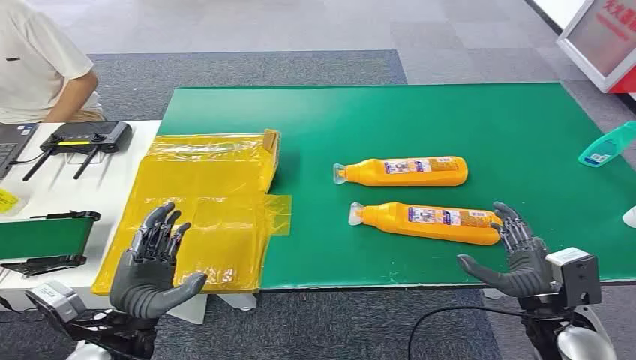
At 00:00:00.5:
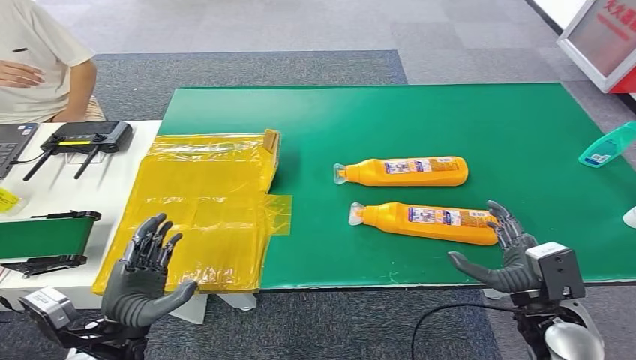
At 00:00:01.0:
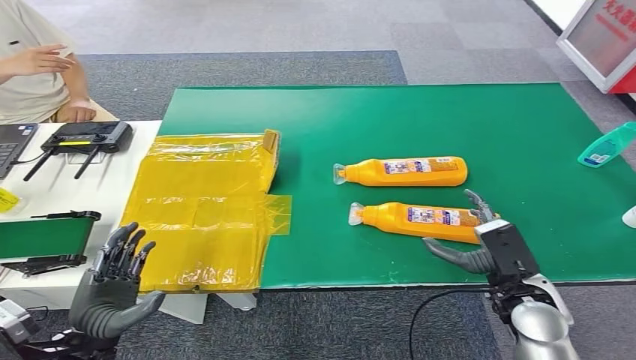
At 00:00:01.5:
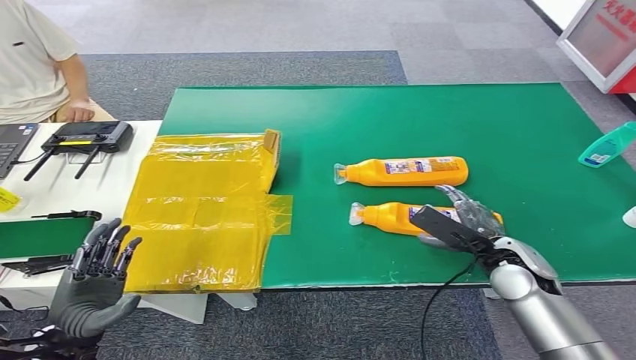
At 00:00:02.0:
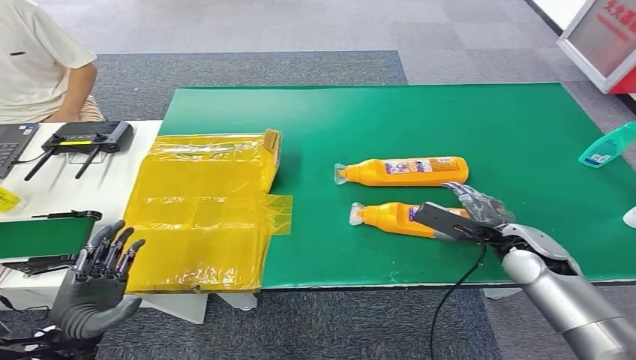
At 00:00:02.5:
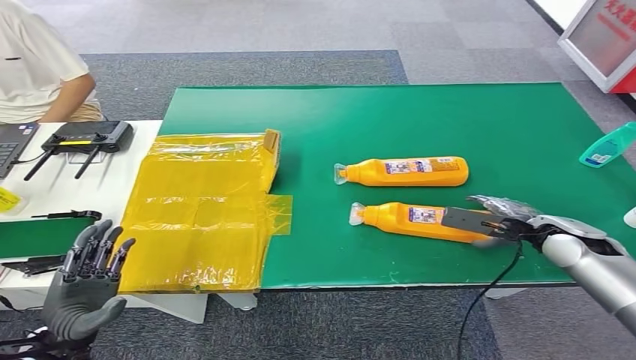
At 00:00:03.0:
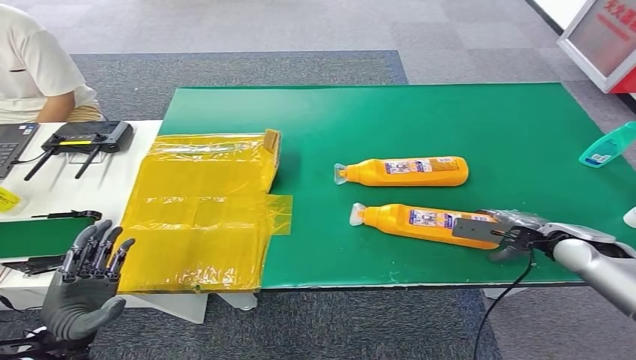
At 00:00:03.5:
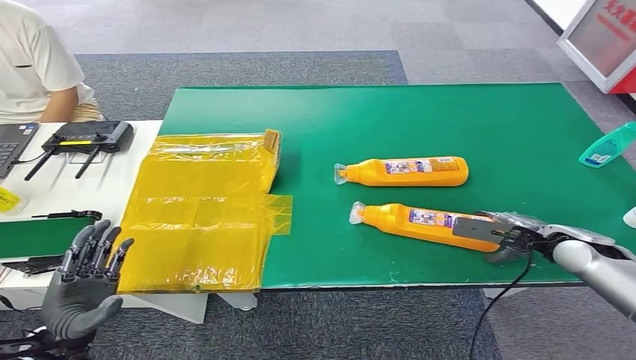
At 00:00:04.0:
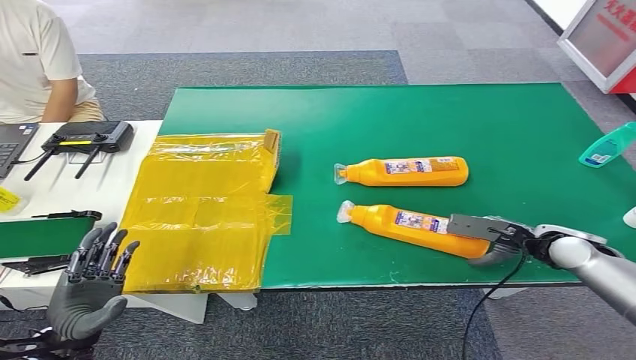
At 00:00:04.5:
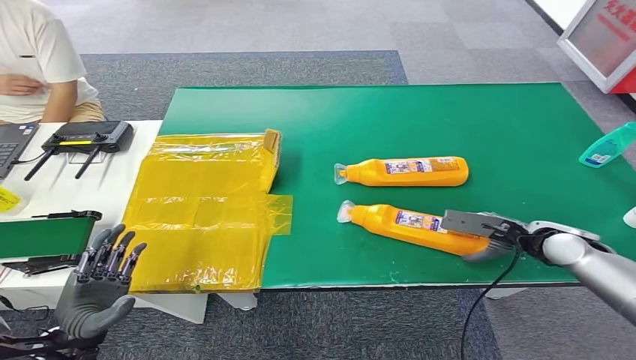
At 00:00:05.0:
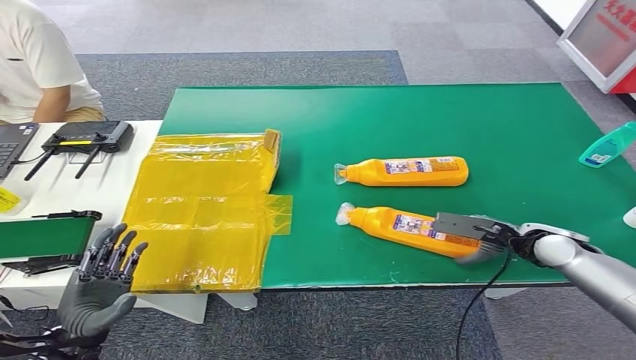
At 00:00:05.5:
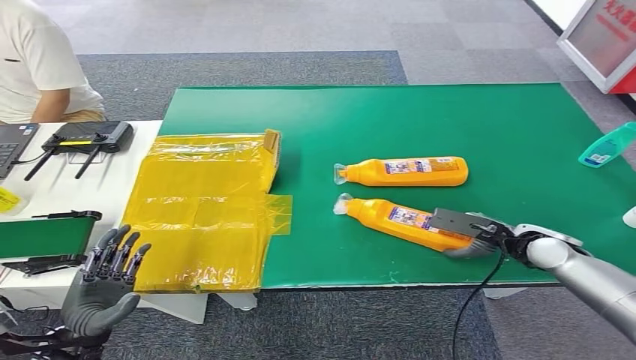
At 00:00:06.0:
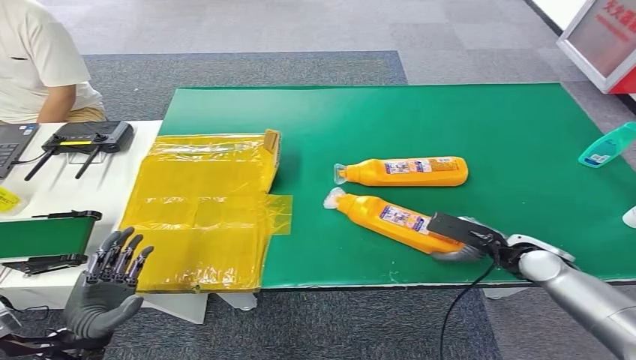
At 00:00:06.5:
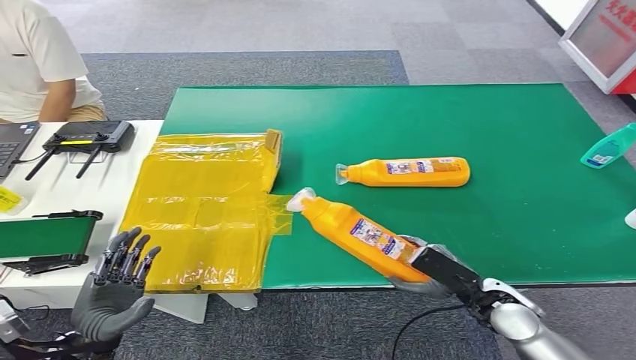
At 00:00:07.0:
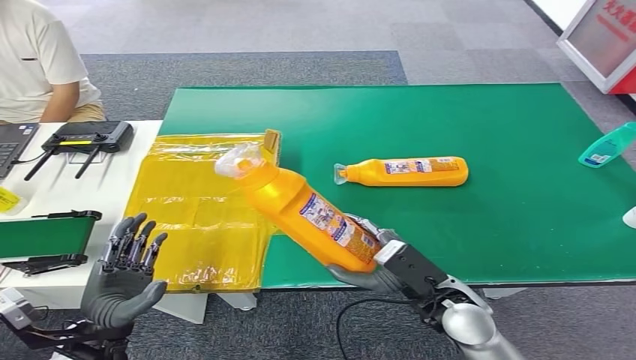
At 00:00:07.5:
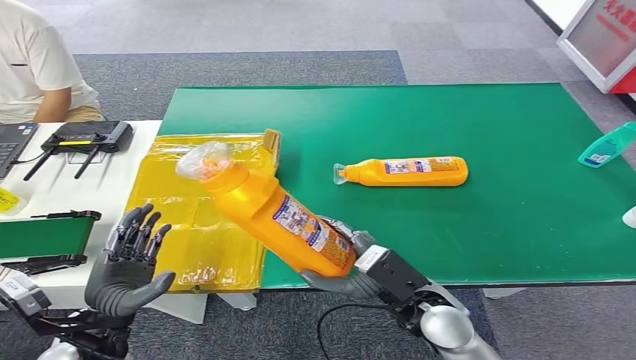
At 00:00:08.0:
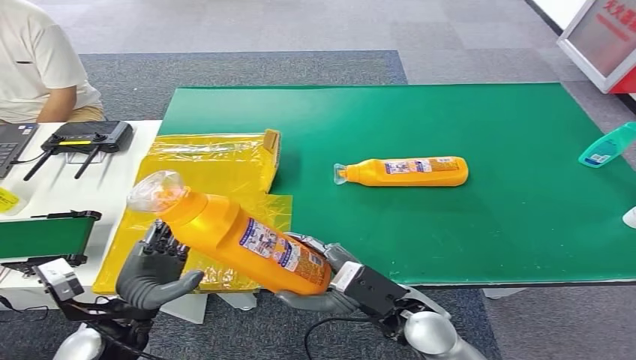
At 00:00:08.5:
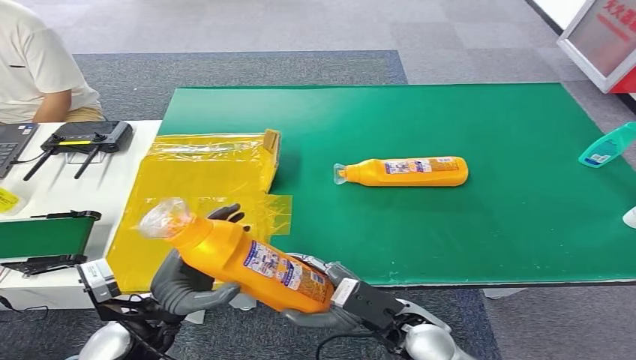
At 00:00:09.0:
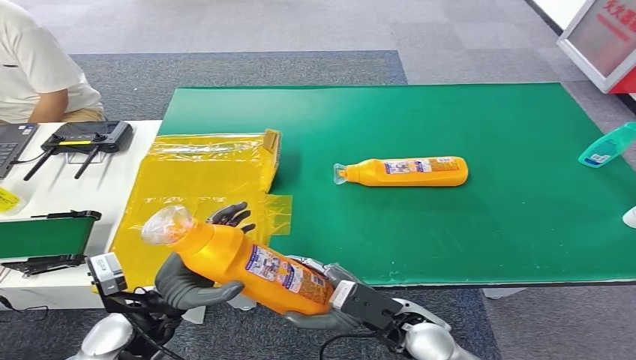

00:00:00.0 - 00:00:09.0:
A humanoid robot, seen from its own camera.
Step, 00:00:00.0 - 00:00:08.5: Pick up the bottle from the table.
00:00:02.0 - 00:00:04.5: The right hand is displaced to the right by some 5 cm.
00:00:04.5 - 00:00:07.0: The right hand shifts some 20 cm to the left and backward. Meanwhile the left hand heads to the right, covering approximately 5 cm.
00:00:07.0 - 00:00:09.0: The right hand is displaced to the left by approximately 5 cm, while the left hand goes roughly 10 cm to the right and forward.

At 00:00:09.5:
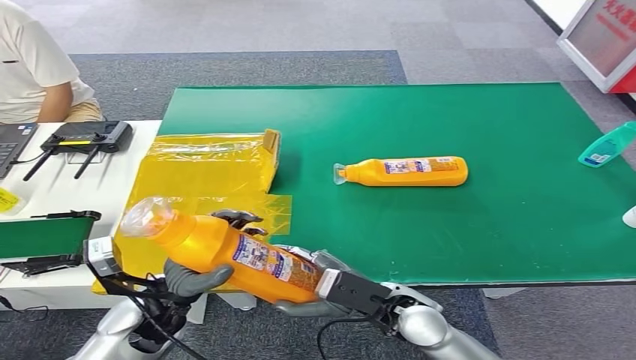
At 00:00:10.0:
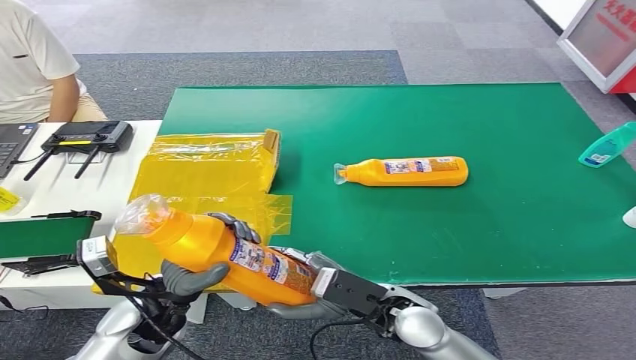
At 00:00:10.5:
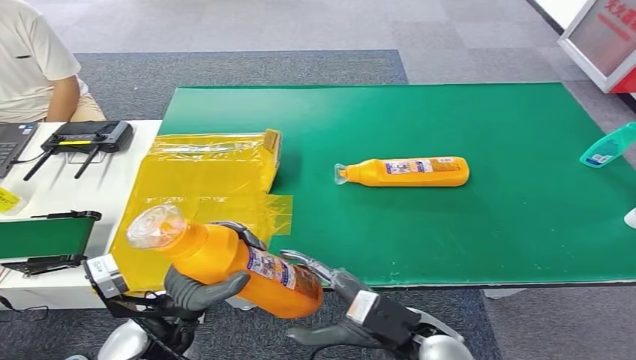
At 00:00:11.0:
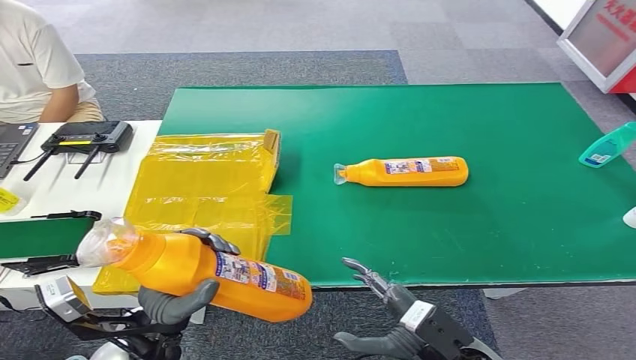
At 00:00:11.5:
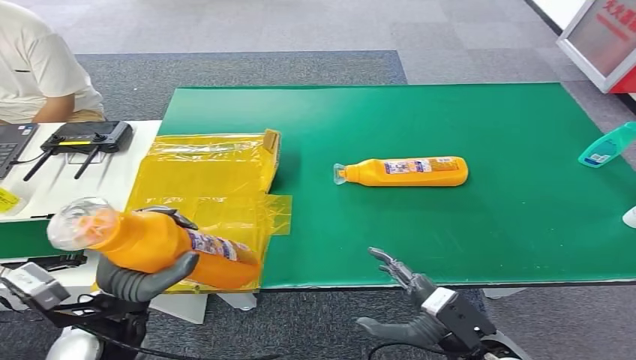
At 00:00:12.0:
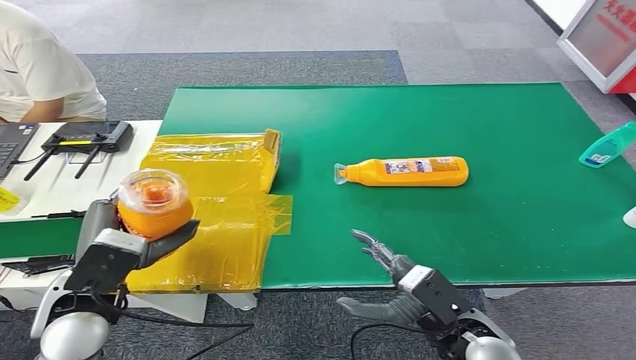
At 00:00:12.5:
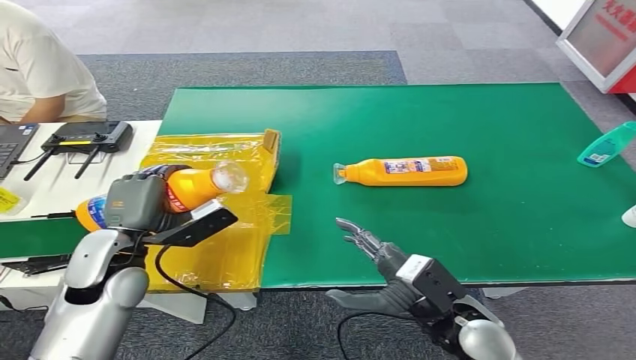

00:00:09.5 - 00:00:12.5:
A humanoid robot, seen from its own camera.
Step, 00:00:09.5 - 00:00:12.5: Turn the bottle to the front side.
00:00:09.5 - 00:00:11.0: The left hand moves backward, some 5 cm; the right hand moves backward and to the right, some 10 cm.
00:00:11.0 - 00:00:12.5: The right hand goes some 5 cm forward, while the left hand moves forward, to the left and upward, about 15 cm.
